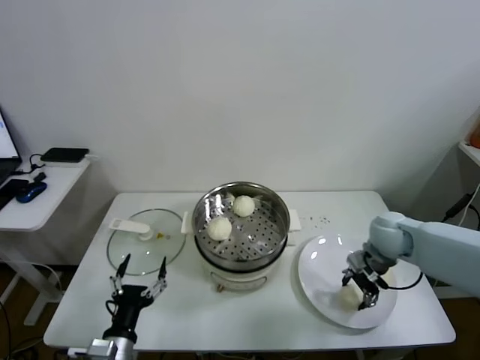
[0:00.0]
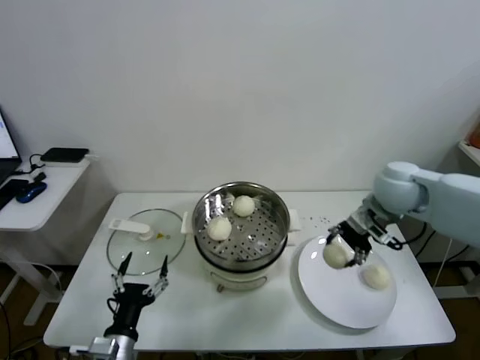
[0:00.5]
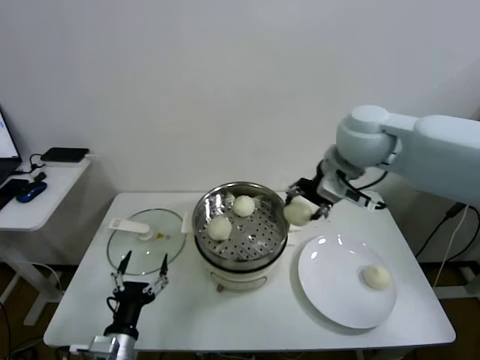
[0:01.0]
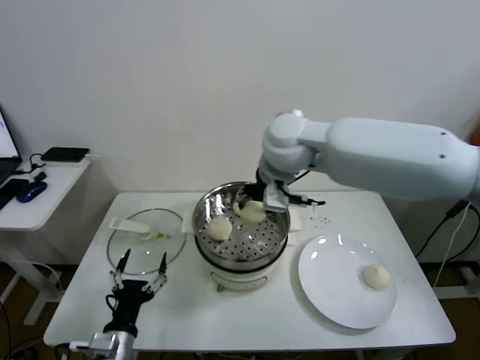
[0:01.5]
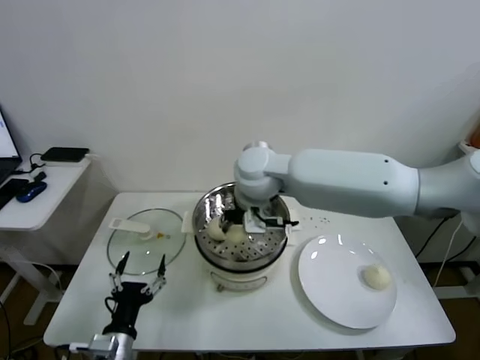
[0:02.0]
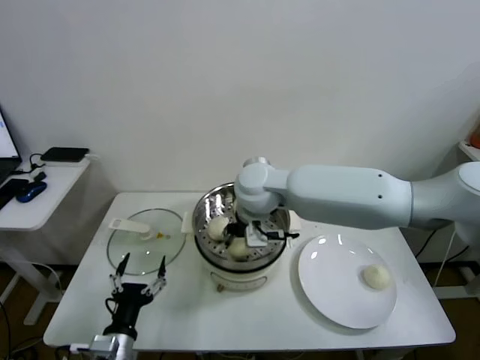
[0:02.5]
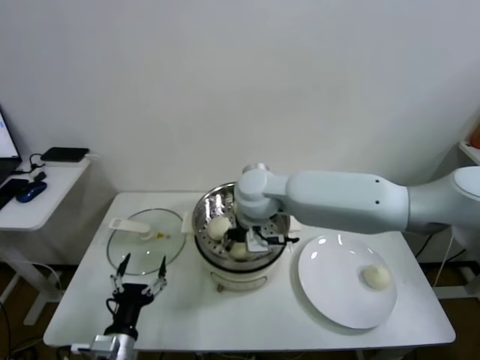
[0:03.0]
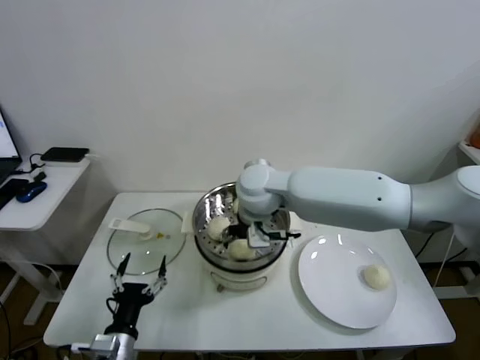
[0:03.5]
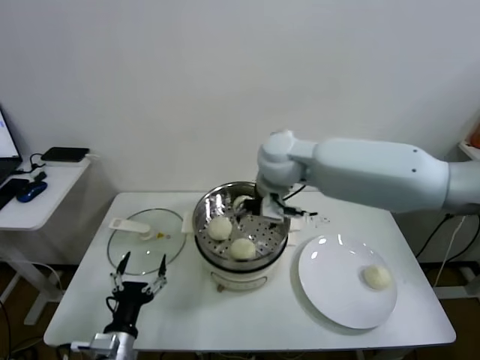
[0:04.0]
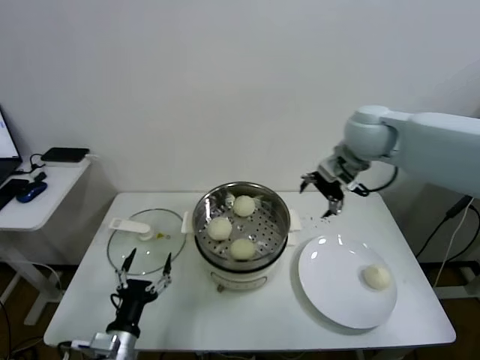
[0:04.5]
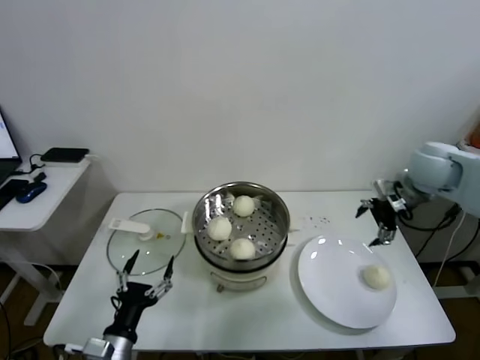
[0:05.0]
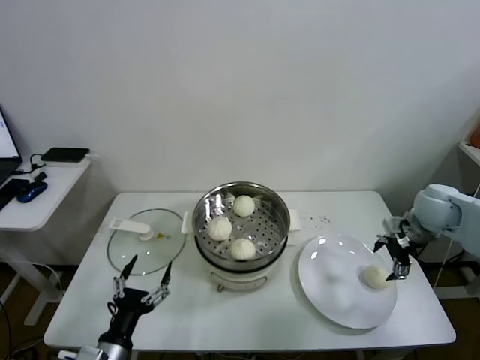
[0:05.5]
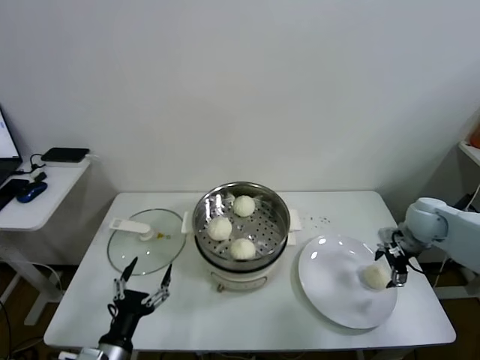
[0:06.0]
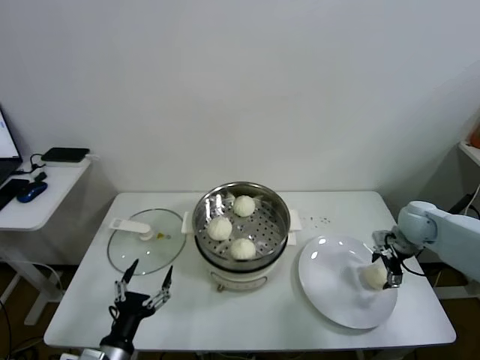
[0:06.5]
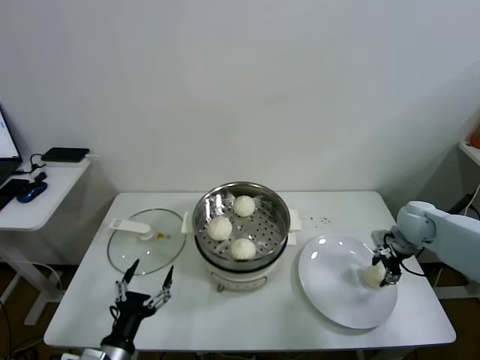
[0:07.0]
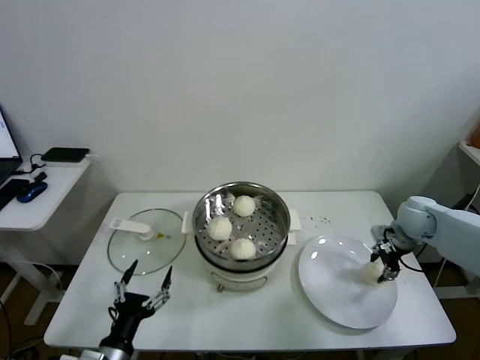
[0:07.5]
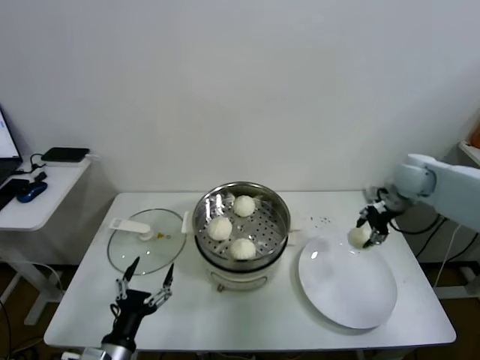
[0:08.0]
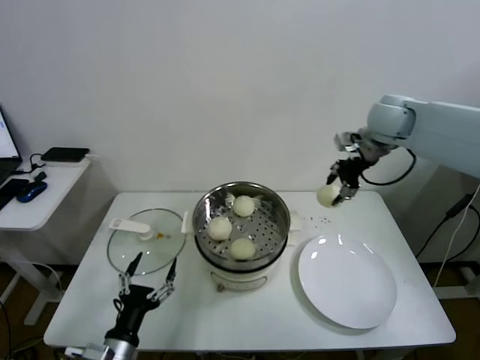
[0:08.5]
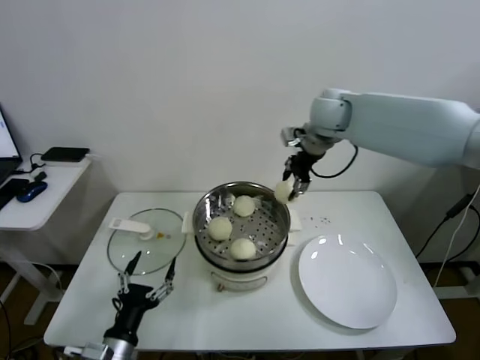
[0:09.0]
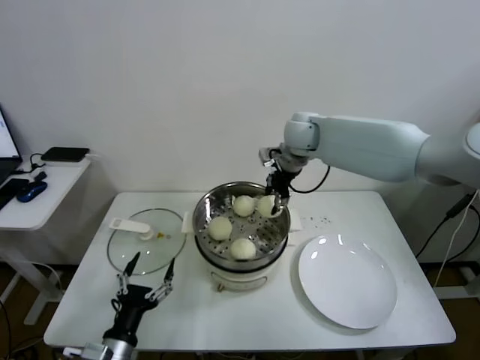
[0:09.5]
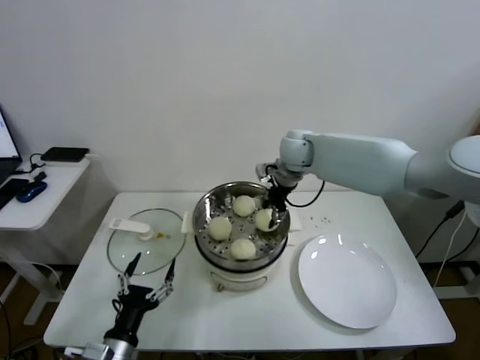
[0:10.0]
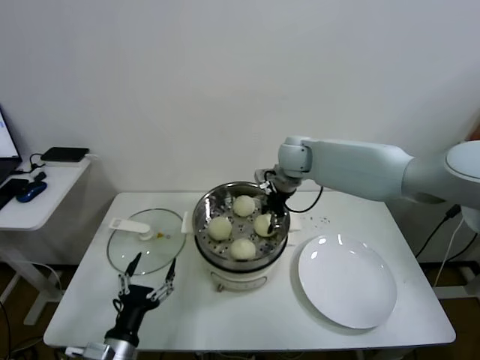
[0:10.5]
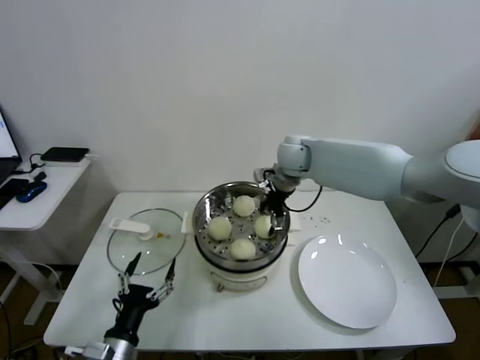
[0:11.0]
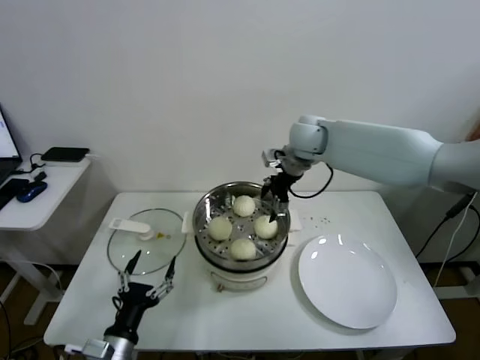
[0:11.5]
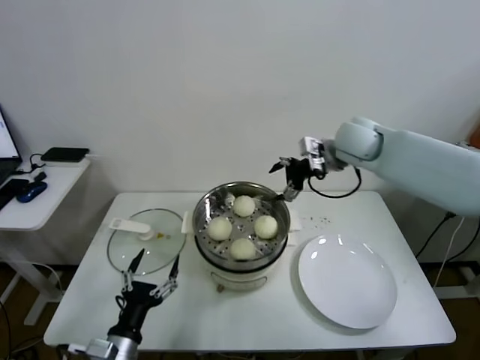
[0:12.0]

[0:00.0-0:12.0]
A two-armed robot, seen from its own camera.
Task of the whole recording: take steamed baozi put them in steamer.
Step, 0:00.0 to 0:03.0: Place the baozi on the steamer with right gripper.
Step, 0:04.0 to 0:07.0: Grasp the baozi in the plate with right gripper.
Step, 0:07.5 to 0:11.0: Place the baozi on the steamer with right gripper.
0:00.0 to 0:02.0: The right gripper heads to the left and upward, covering some 35 cm.
0:02.0 to 0:04.0: The right gripper changes place by roughly 5 cm, and opens up.
0:04.0 to 0:06.0: The right gripper goes some 40 cm to the right and downward.
0:06.0 to 0:08.0: The right gripper moves upward and forward, roughly 10 cm, and closes.
0:08.0 to 0:10.0: The right gripper heads to the left, covering approximately 25 cm.
0:10.0 to 0:12.0: The right gripper moves to the right and upward, approximately 10 cm, and opens.

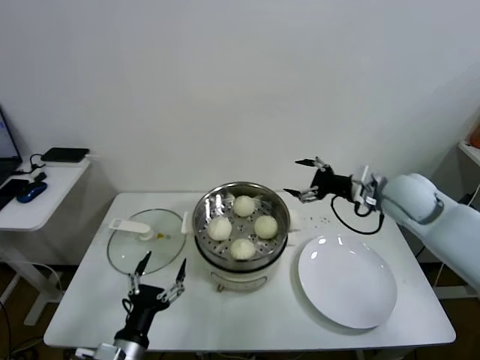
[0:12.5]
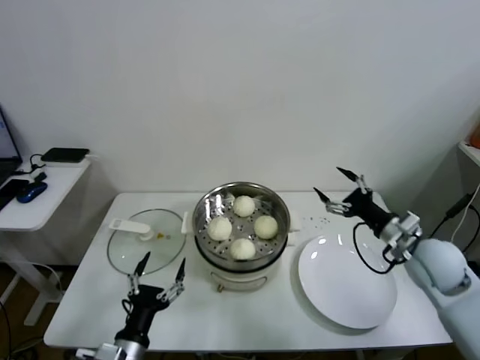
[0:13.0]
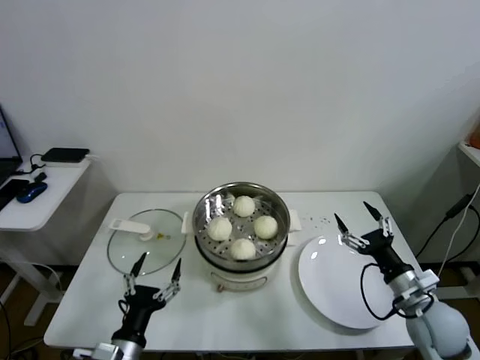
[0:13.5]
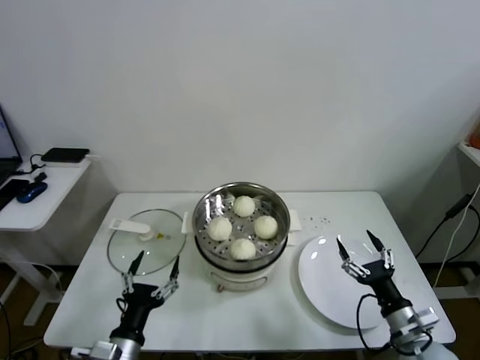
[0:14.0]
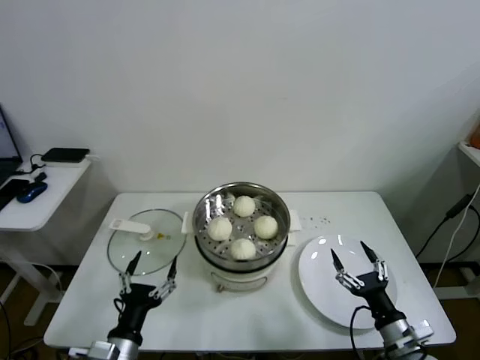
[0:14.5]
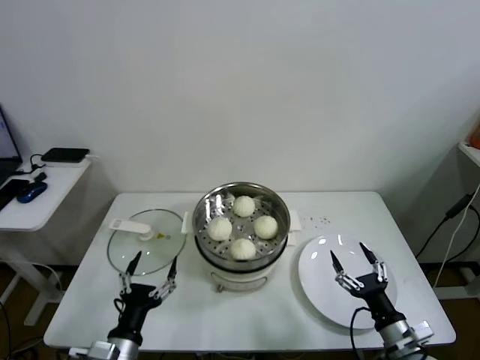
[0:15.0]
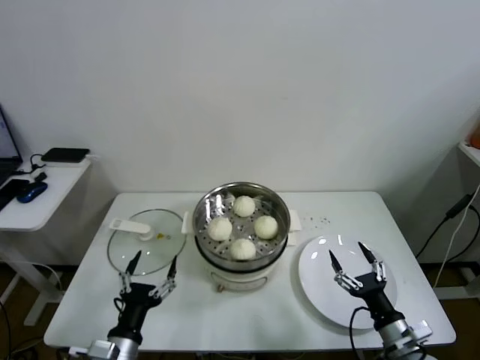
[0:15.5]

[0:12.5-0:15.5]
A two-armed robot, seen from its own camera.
Task of the whole recording: take steamed baozi put them in steamer.
0:12.5 to 0:14.0: The right gripper goes roughly 35 cm backward and downward.
0:14.0 to 0:15.5: The grippers move only a little.

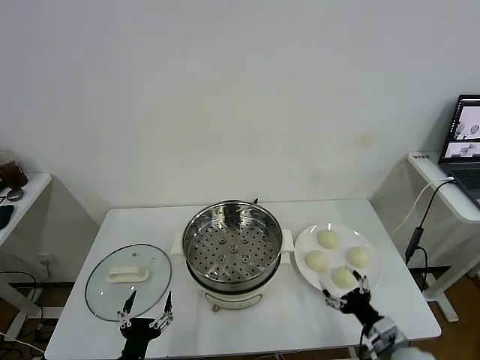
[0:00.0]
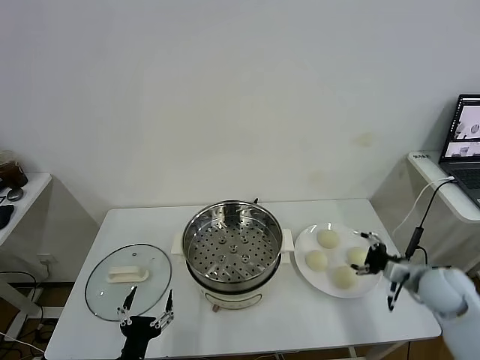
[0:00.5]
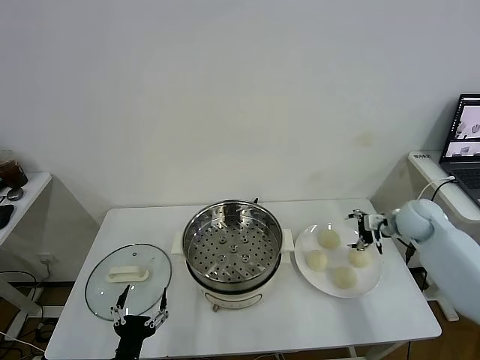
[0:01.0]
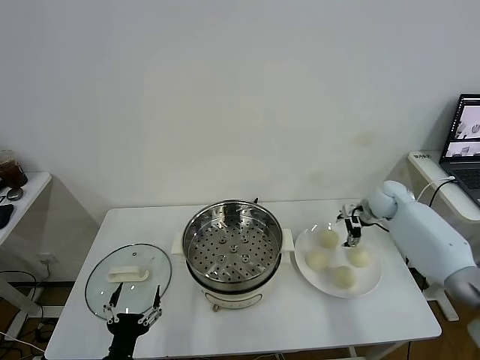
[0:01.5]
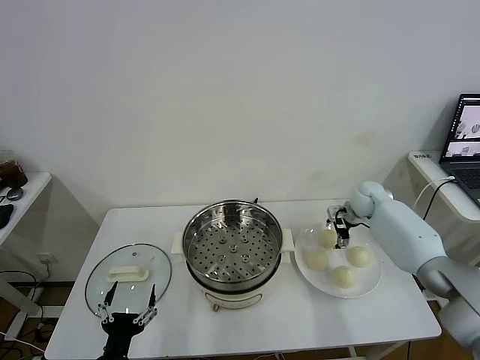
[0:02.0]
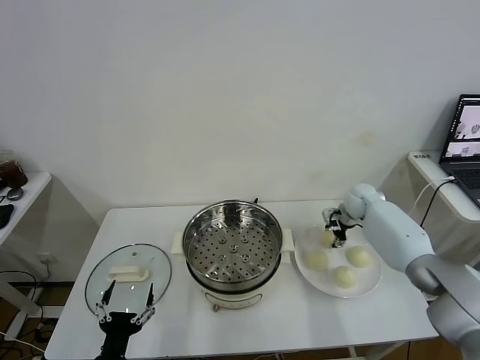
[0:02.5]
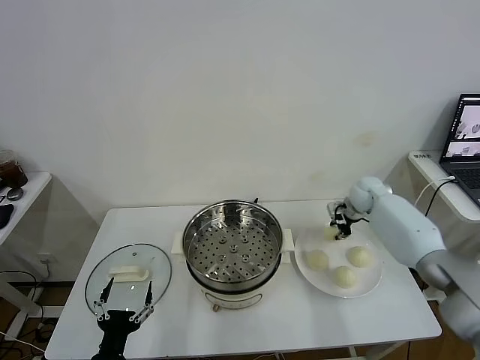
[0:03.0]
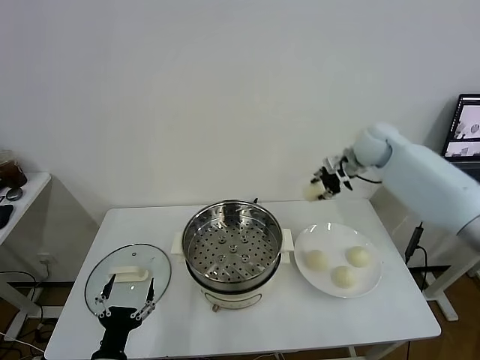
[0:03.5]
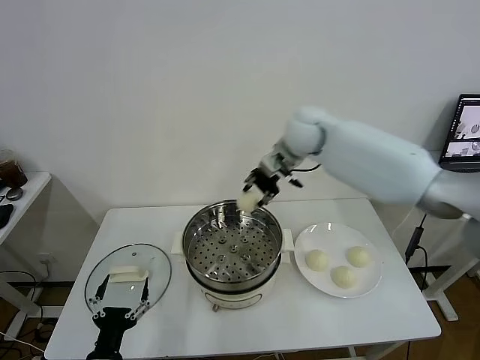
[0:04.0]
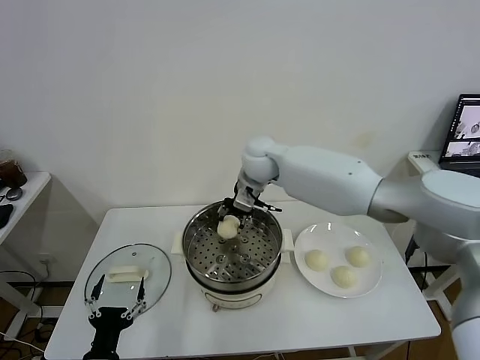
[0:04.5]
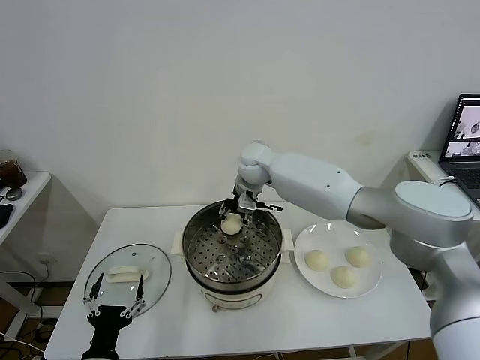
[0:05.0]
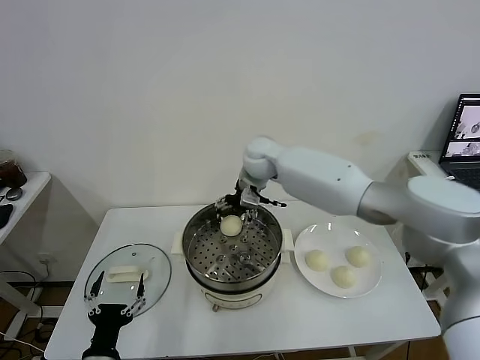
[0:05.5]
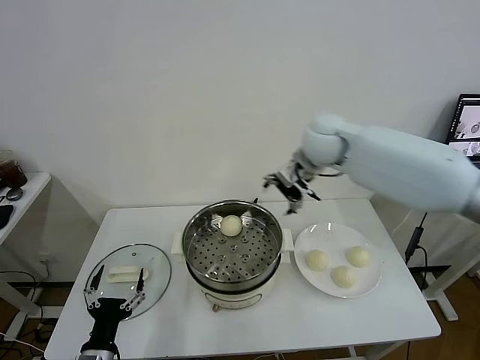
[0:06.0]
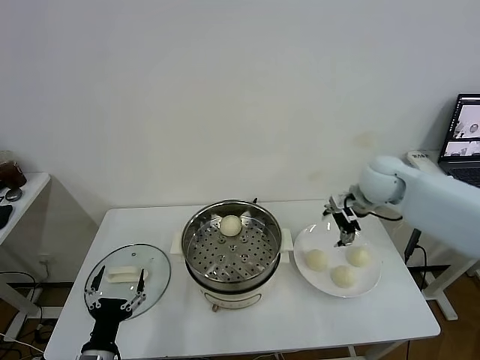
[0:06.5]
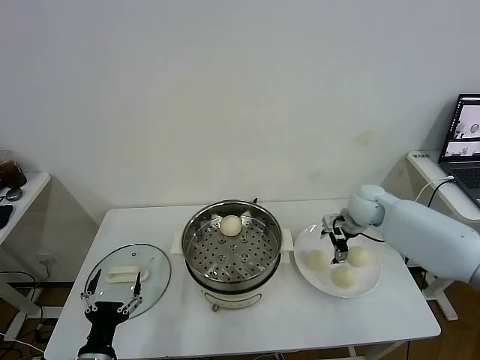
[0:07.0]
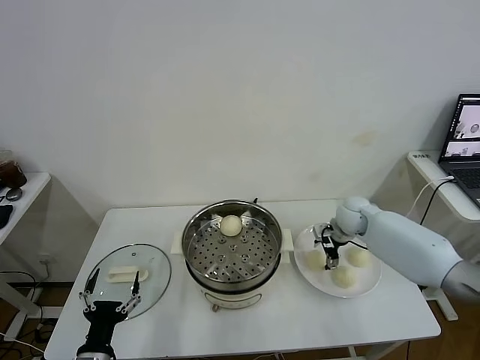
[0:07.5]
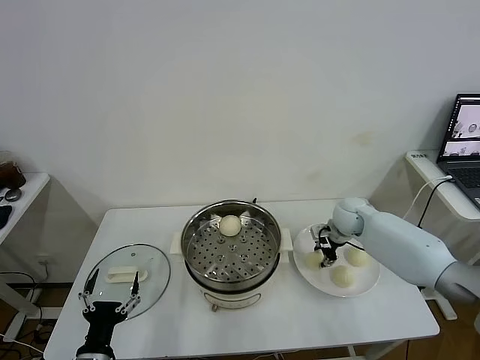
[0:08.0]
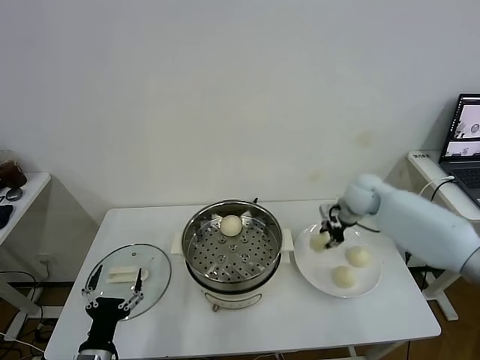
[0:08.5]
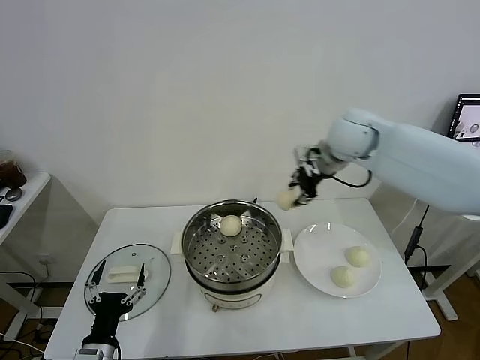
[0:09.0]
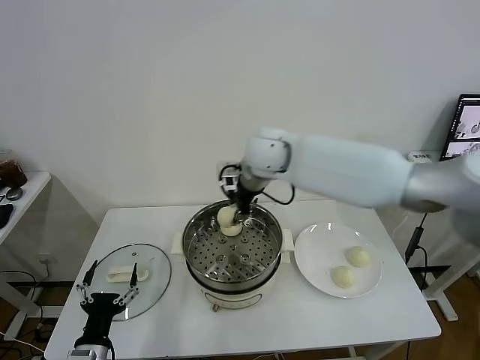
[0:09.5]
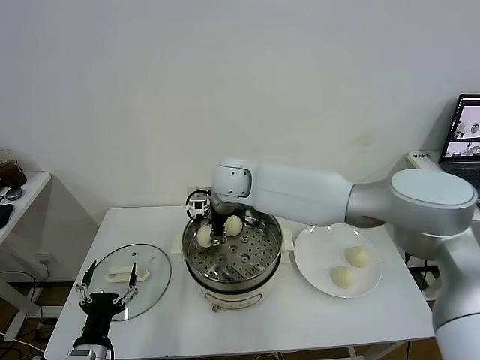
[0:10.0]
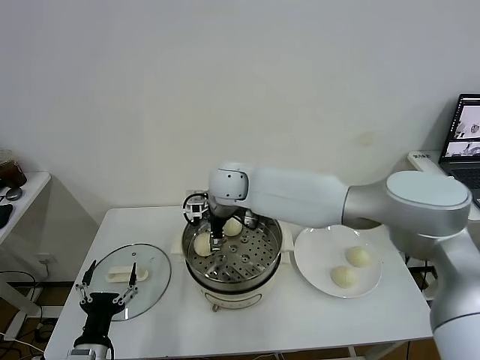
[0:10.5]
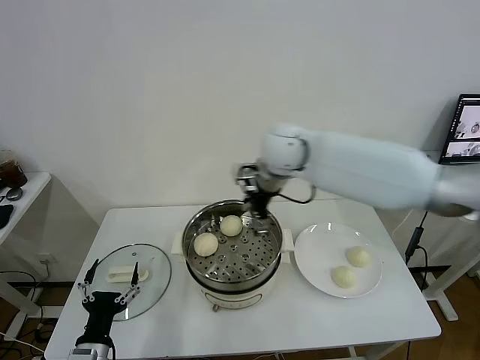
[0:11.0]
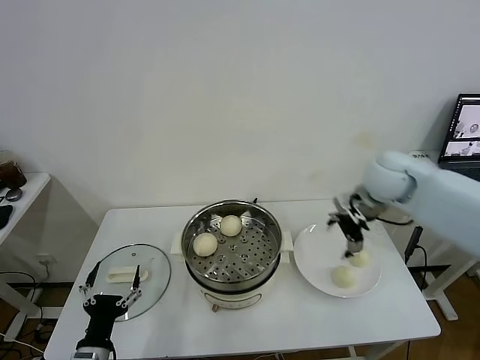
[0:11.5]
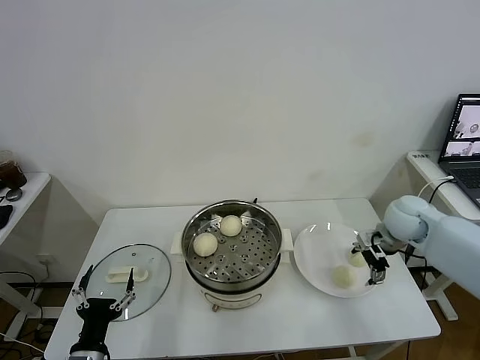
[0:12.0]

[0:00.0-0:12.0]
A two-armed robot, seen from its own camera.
Task of the whole recording: take steamed baozi put them in steamer.
Step, 0:00.0 to 0:02.5: Grasp the baozi in the plate with right gripper.
Step, 0:03.0 to 0:05.5: Place the baozi on the steamer with right gripper.
Step, 0:06.0 to 0:08.0: Grasp the baozi in the plate with right gripper.
Step, 0:08.5 to 0:10.5: Place the baozi on the steamer with right gripper.
0:02.0 to 0:04.0: The right gripper moves to the left and upward, roughly 30 cm, and closes its fingers.
0:04.0 to 0:06.0: The right gripper is displaced to the right by roughly 10 cm, and opens.
0:06.0 to 0:08.0: The right gripper heads downward and to the right, covering about 25 cm, and closes up.
0:08.0 to 0:10.0: The right gripper is displaced to the left and upward by roughly 35 cm.
0:10.0 to 0:12.0: The right gripper goes approximately 40 cm to the right, and opens.
